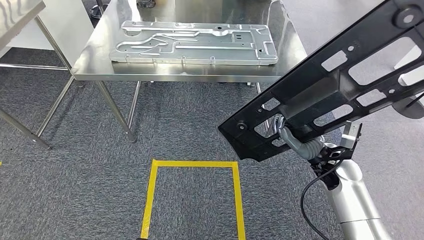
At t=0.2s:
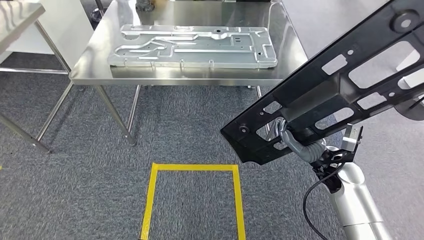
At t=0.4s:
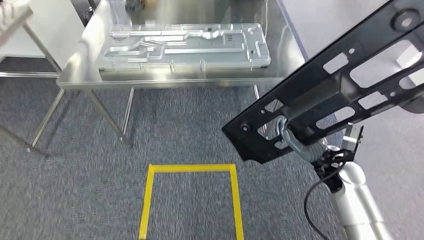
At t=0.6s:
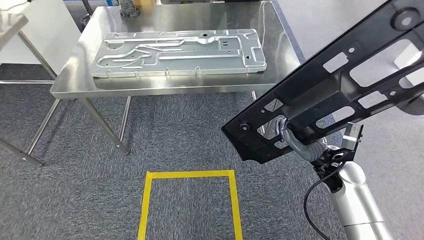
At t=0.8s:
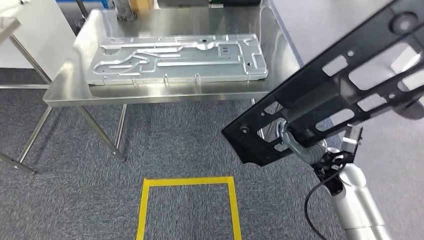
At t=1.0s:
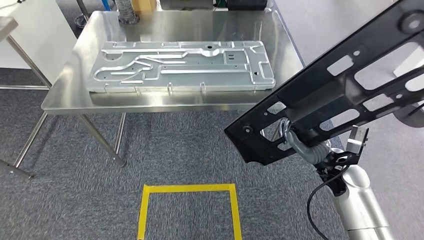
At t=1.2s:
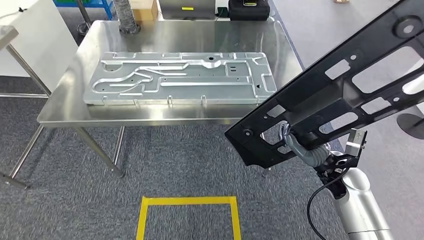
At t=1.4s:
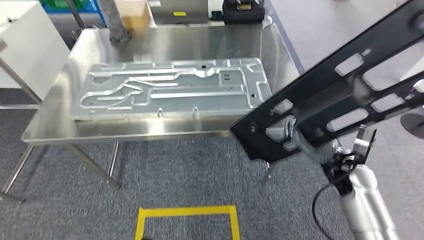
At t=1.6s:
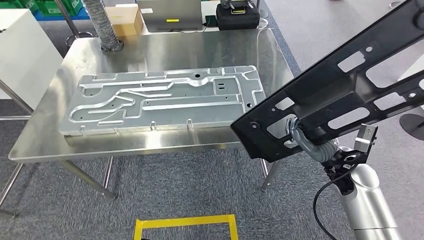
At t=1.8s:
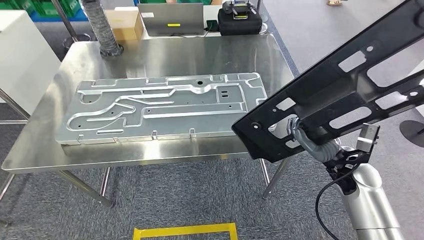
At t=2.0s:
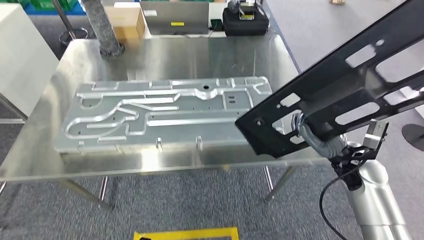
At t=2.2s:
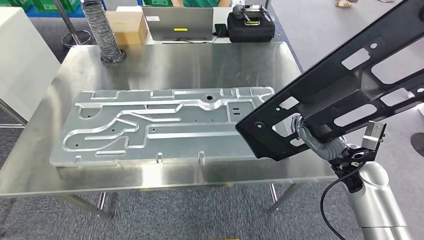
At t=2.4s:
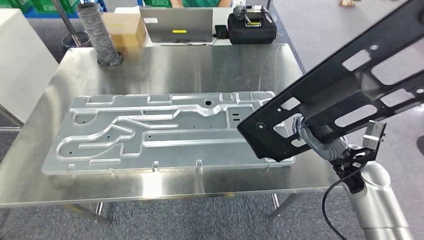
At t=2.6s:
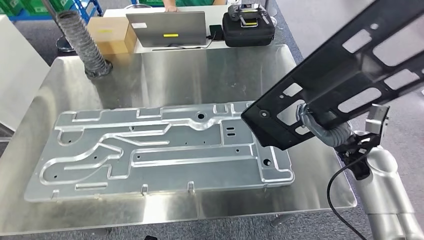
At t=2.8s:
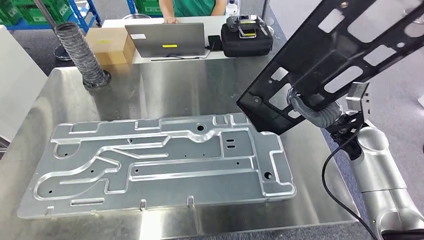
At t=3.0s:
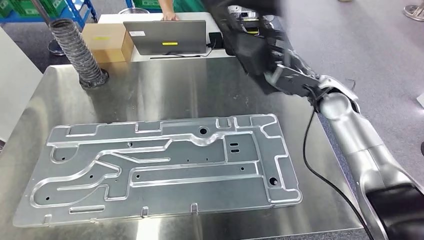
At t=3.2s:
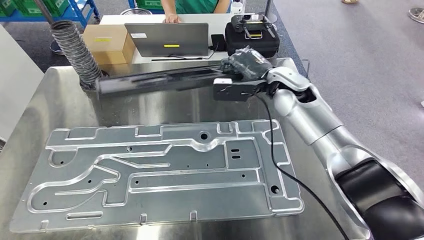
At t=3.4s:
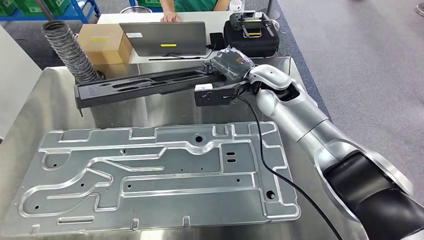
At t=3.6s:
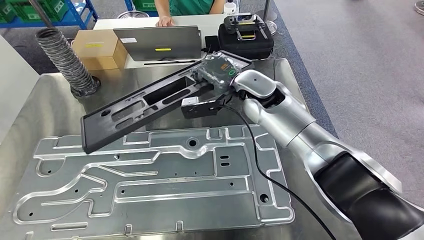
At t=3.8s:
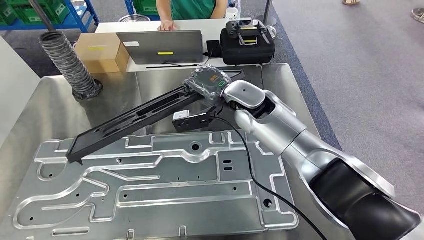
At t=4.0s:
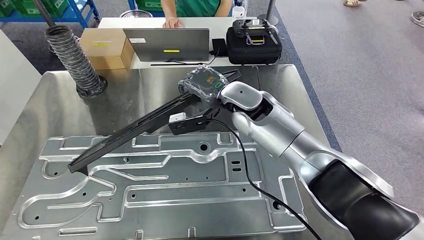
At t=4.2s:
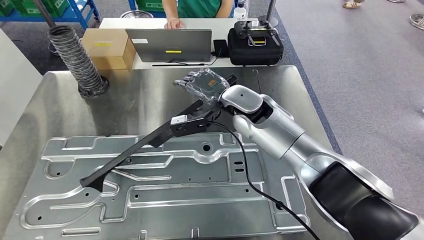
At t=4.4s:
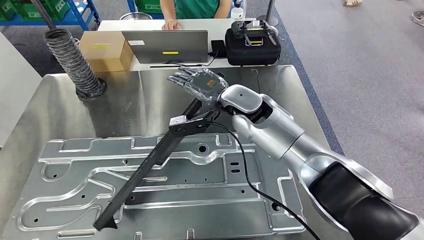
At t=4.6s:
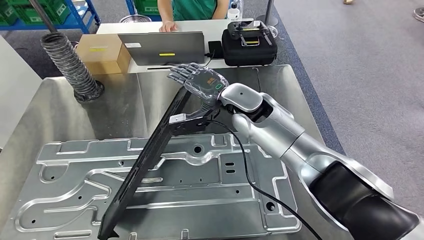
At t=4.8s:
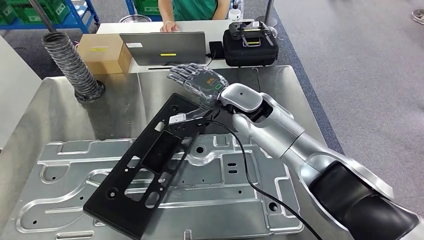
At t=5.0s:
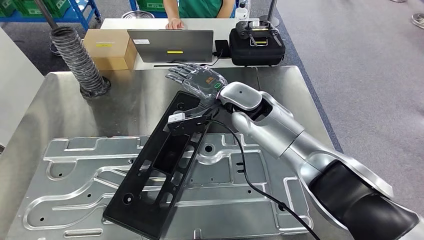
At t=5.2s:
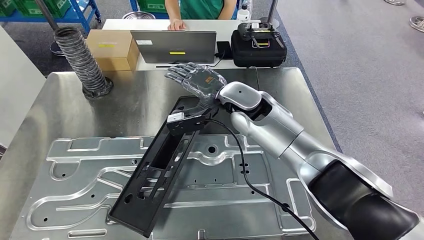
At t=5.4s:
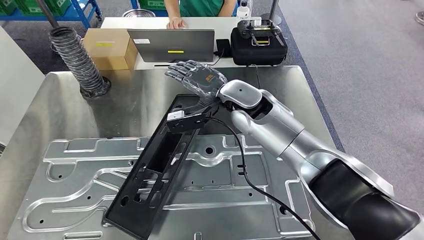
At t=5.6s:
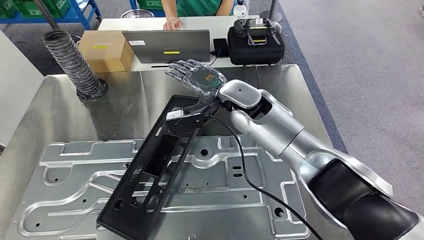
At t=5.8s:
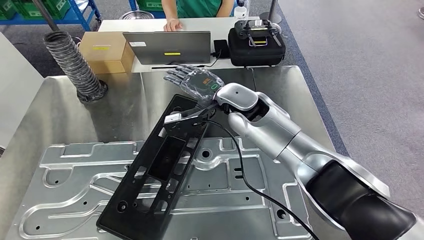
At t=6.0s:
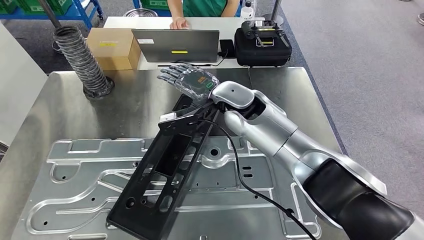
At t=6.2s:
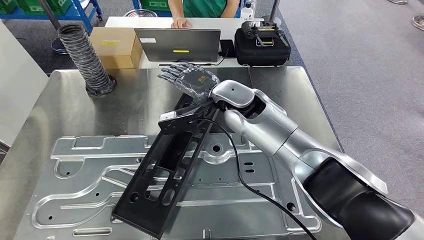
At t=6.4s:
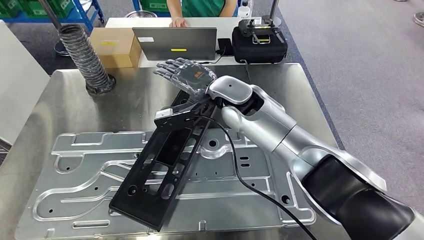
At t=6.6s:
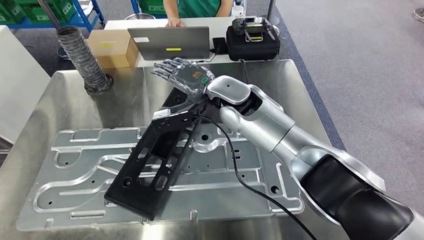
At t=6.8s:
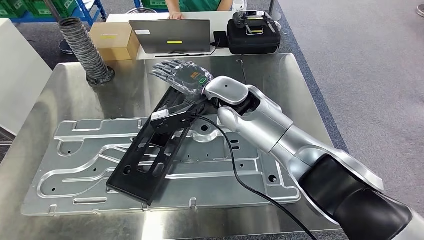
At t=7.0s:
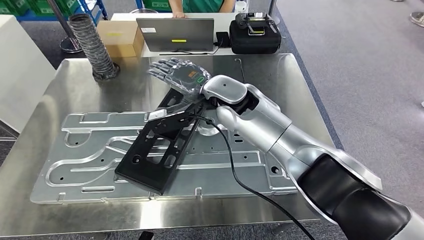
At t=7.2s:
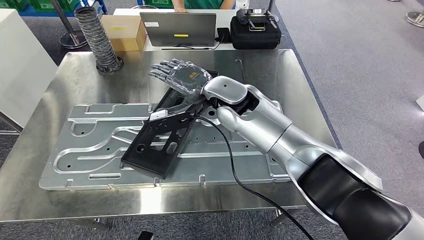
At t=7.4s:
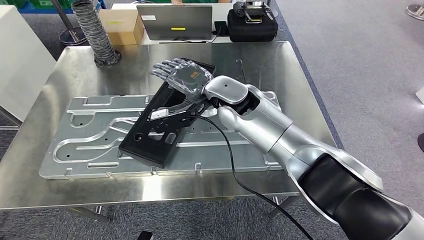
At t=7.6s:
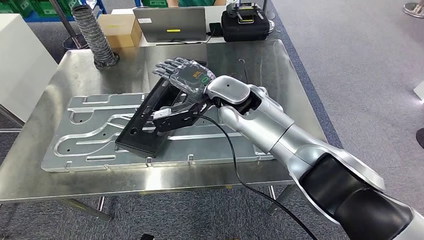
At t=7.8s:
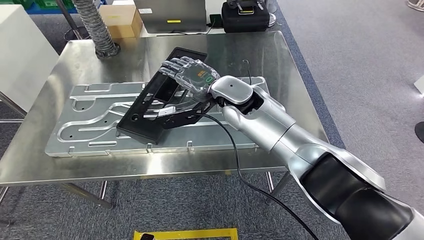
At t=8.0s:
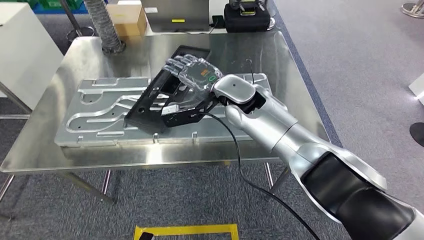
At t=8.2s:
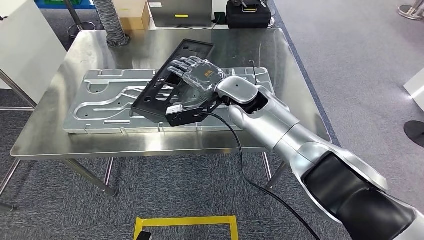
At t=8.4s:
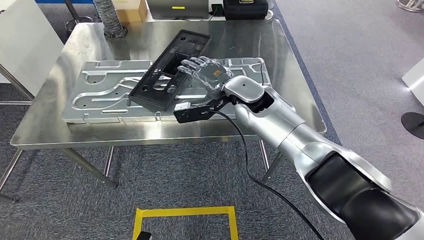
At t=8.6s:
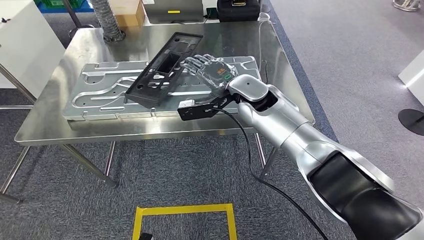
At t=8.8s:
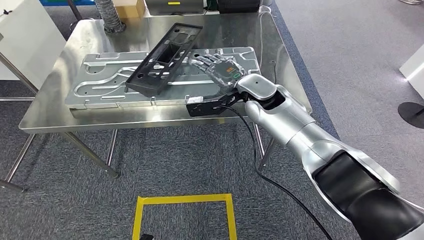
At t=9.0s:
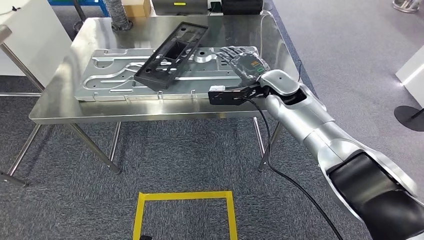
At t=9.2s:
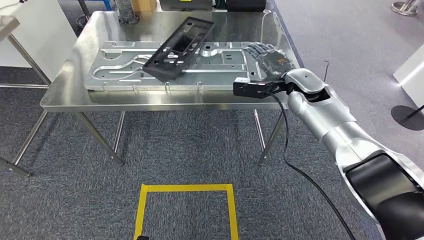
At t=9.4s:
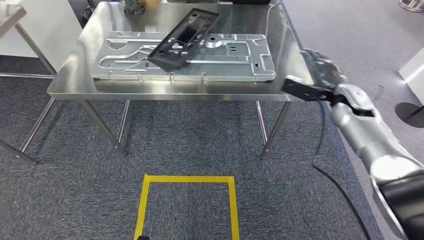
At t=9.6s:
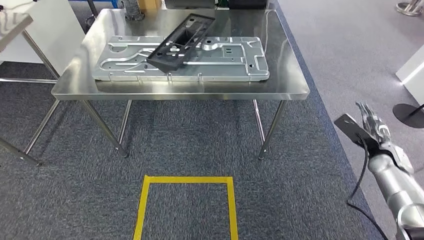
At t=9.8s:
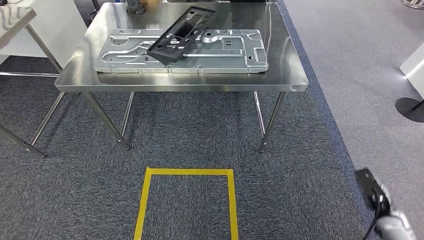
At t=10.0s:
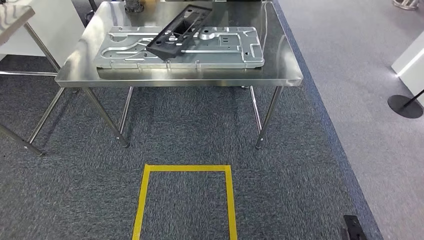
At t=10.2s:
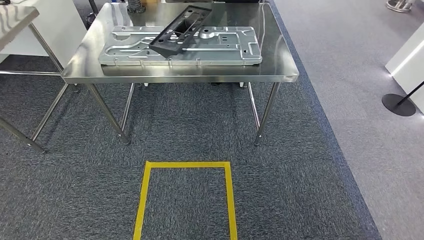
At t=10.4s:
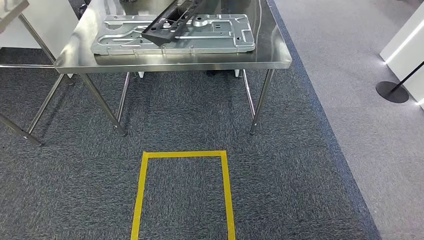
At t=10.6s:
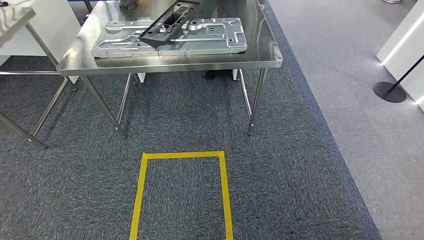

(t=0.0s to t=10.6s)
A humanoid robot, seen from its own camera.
Step, t=2.8s - t=6.0s: Insert the large material into the corresponding slot on the workbench.

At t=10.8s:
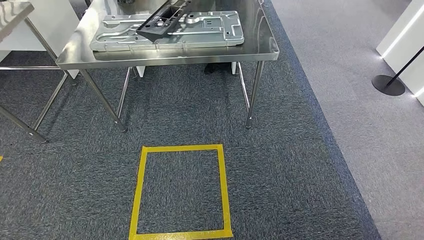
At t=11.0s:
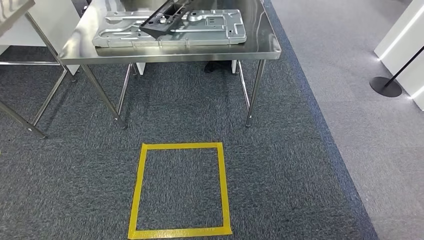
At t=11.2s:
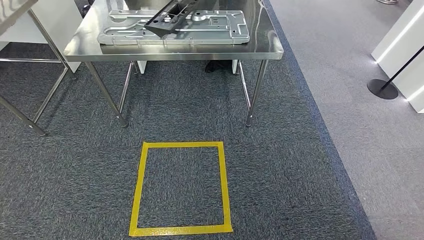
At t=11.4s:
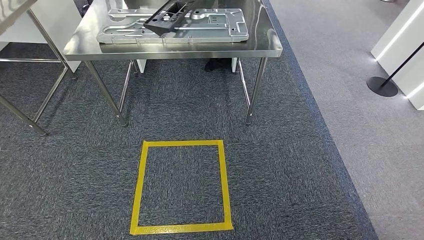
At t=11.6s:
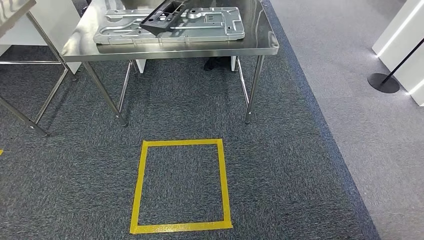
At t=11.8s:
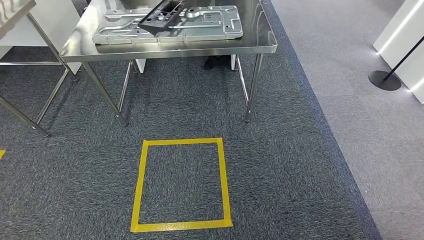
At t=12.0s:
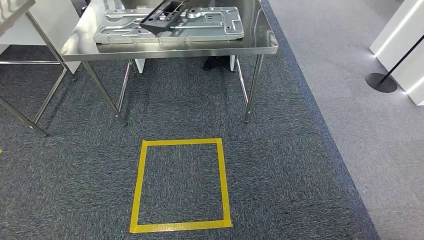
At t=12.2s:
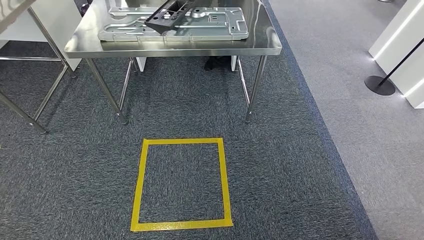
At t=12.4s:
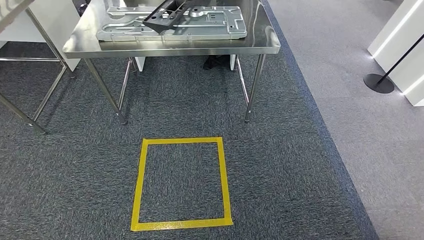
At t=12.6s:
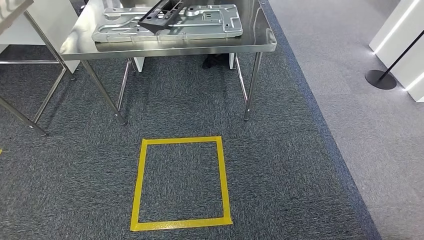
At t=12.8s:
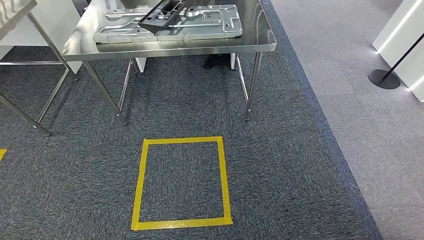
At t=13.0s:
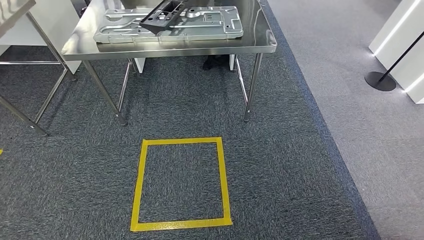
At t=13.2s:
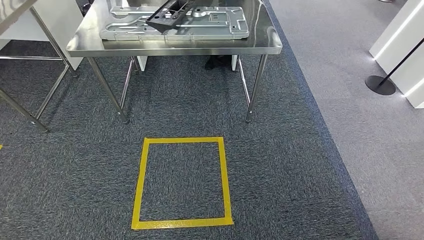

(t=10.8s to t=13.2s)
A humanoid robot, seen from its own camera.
Step, t=10.8s - t=13.2s: Move to the initial position of the shelf.
t=10.8s - t=12.0s: The hands move only a little.
t=12.0s - t=13.2s: The left hand goes about 10 cm backward and to the left.
